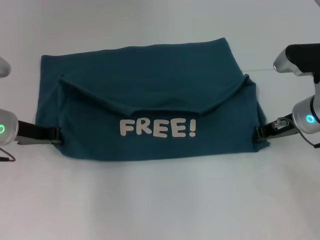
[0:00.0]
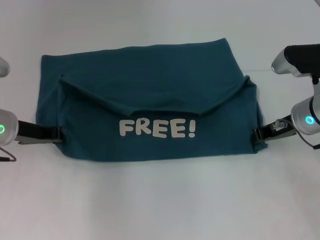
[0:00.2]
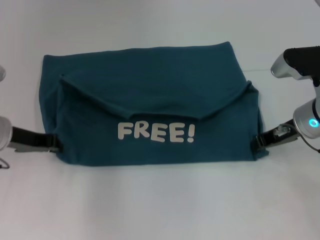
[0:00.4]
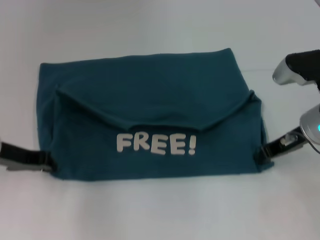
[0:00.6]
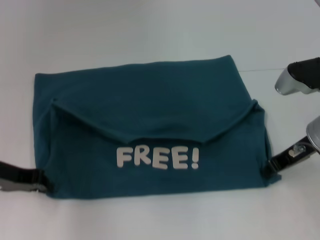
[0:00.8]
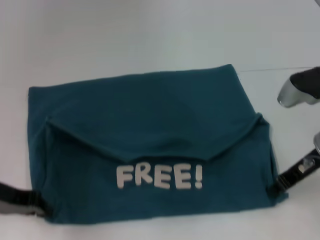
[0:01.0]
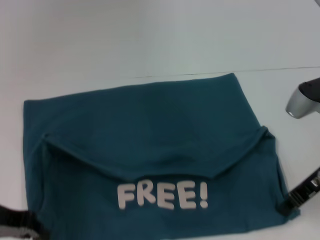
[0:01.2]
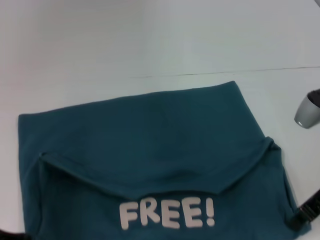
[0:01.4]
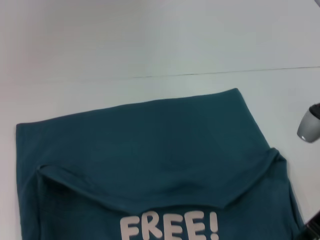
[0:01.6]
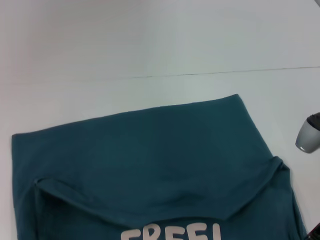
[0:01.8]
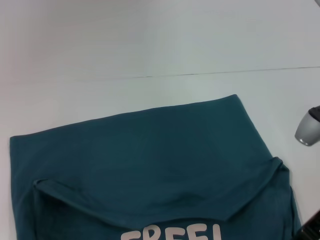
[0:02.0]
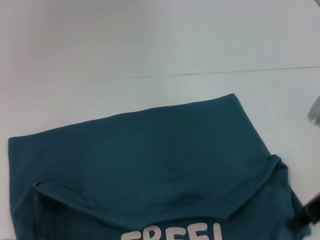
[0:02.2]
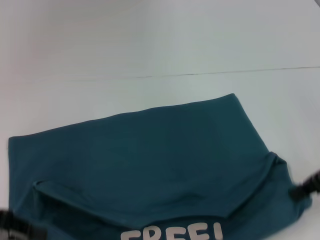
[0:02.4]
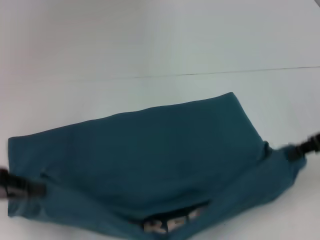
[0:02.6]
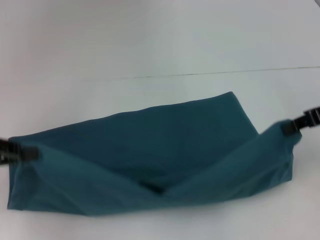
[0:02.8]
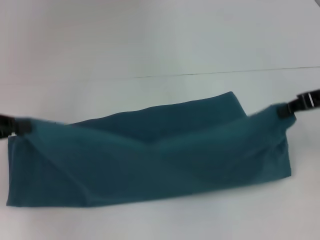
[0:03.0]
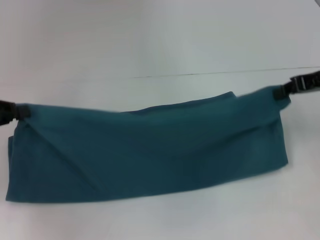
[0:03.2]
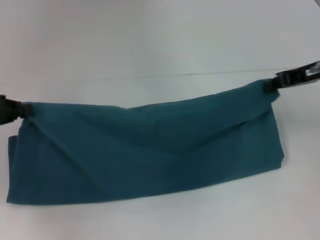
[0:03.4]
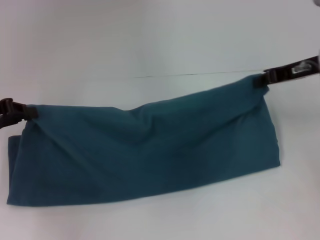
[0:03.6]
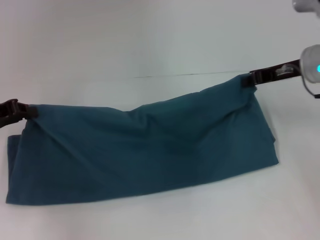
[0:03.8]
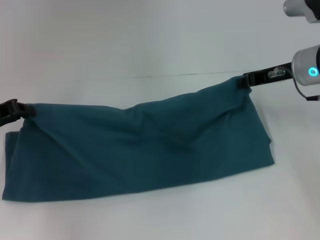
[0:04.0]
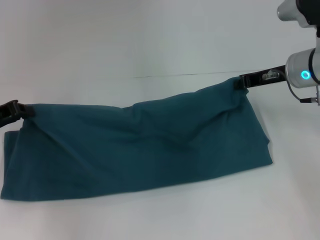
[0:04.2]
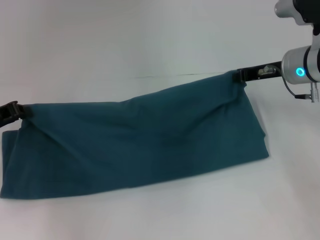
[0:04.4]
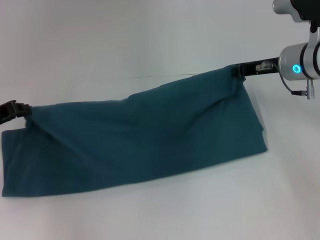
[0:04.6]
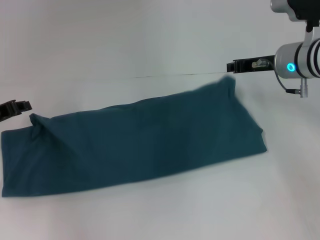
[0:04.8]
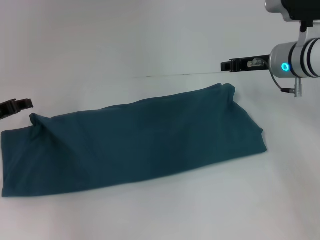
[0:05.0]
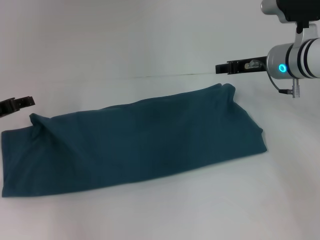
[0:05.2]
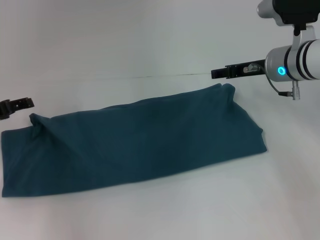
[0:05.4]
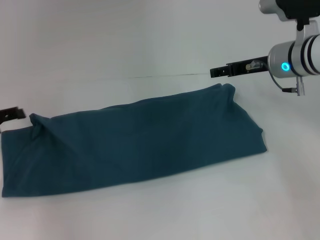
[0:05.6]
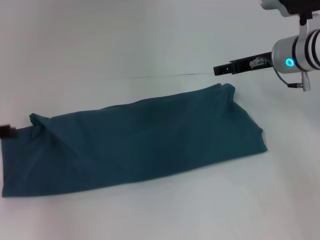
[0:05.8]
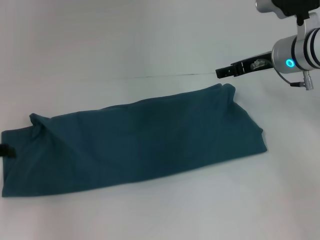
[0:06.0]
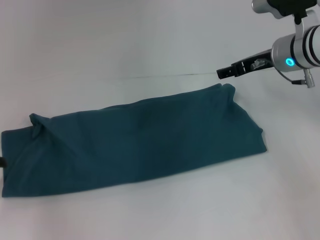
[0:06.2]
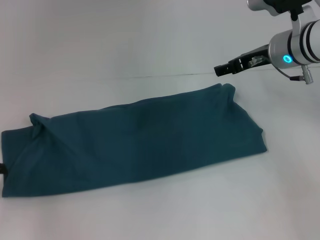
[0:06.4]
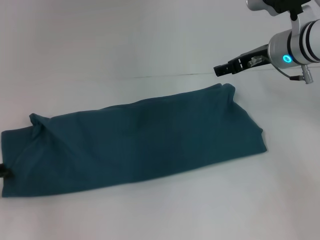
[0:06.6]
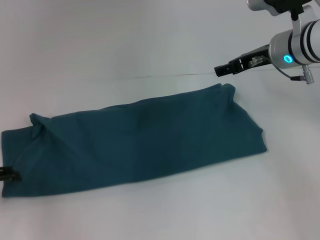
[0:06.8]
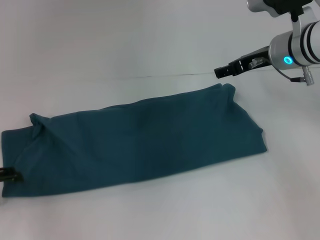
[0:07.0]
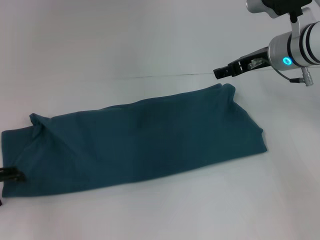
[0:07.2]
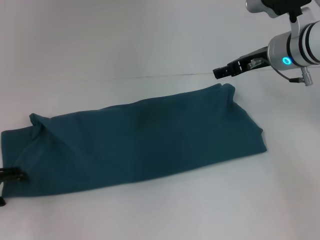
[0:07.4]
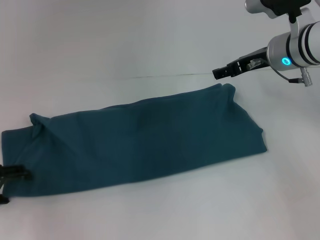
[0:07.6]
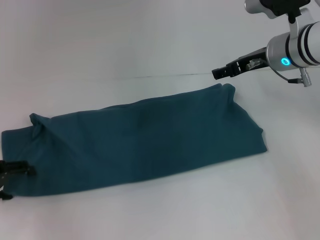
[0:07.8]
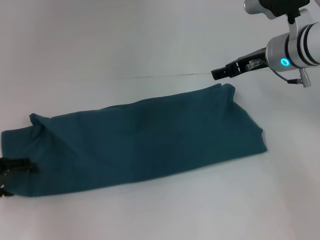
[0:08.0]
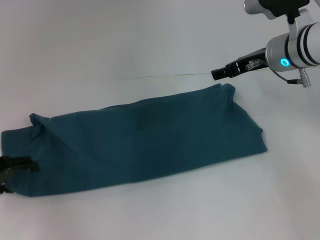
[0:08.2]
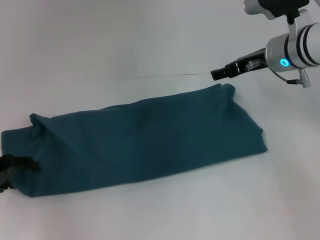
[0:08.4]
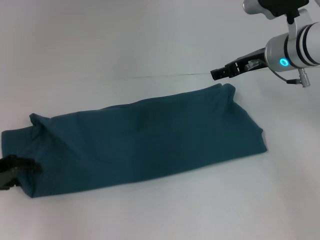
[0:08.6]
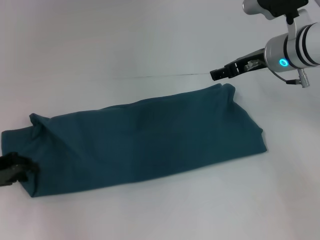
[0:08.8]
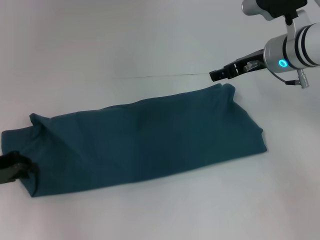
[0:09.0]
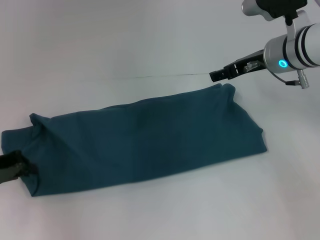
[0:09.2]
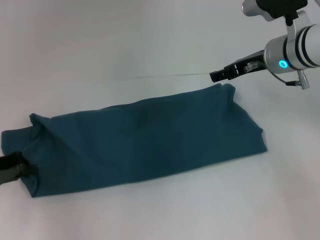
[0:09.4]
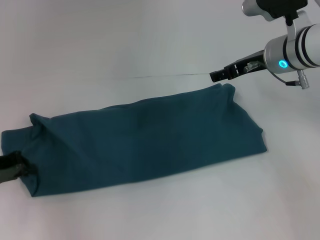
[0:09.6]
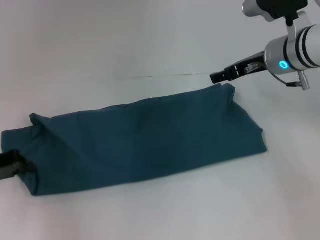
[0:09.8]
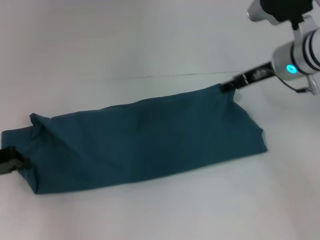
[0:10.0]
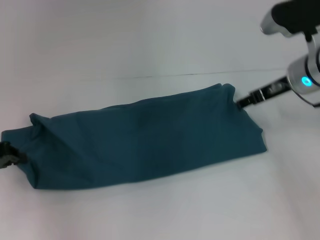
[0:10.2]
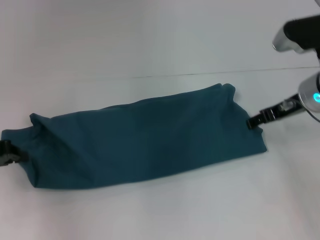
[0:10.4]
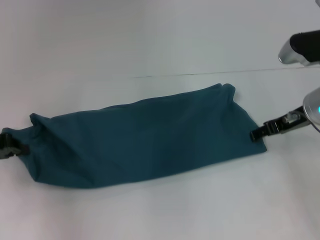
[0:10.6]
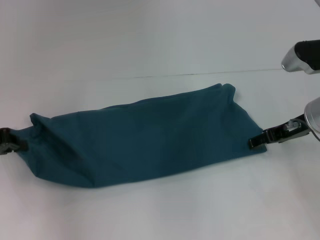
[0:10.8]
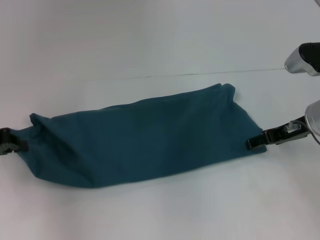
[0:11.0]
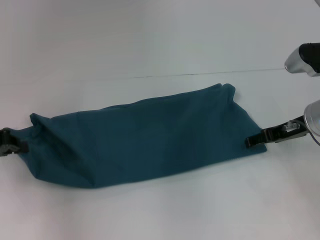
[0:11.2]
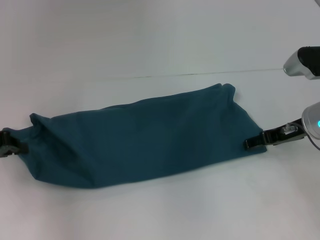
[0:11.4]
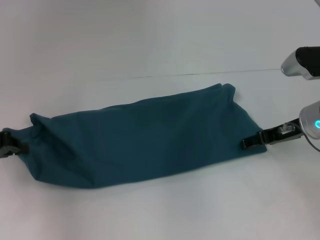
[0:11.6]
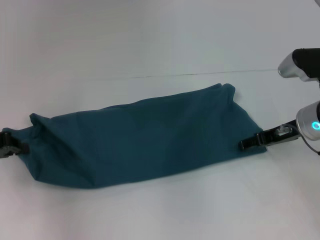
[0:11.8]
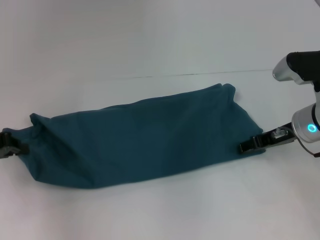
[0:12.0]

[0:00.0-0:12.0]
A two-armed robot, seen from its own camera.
Step, 2.0 to 4.8 s: Fold the clothes to the left.
Step, 2.0 to 4.8 s: Fold the clothes to the right.
0.0 to 1.6 s: The two grippers go roughly 10 cm backward.
1.6 to 3.0 s: The two grippers go about 10 cm upward and forward.
3.0 to 4.4 s: The right gripper shifts about 10 cm to the left, forward and downward, while the left gripper goes about 10 cm downward and forward.
4.4 to 6.0 s: The left gripper heads backward, covering approximately 5 cm, and opens up. Meanwhile the right gripper opens.
6.0 to 7.6 s: The grippers make only small movements.
7.6 to 9.0 s: The left gripper closes its fingers.
9.0 to 10.4 s: The right gripper changes place by some 5 cm. Meanwhile the left gripper closes.
10.4 to 12.0 s: The grippers stay close to where they were, moving slightly.

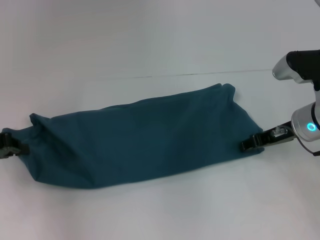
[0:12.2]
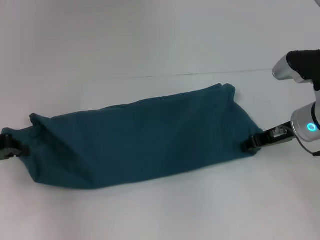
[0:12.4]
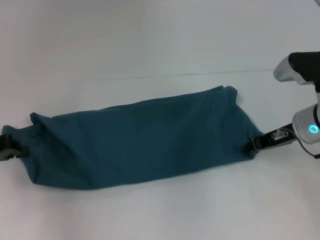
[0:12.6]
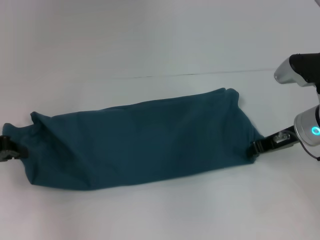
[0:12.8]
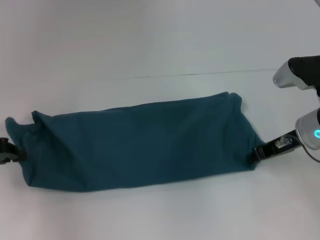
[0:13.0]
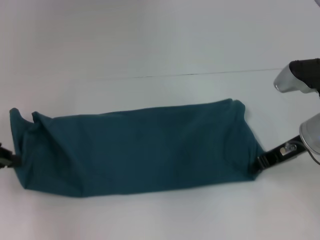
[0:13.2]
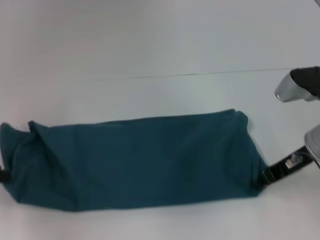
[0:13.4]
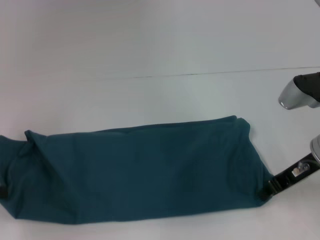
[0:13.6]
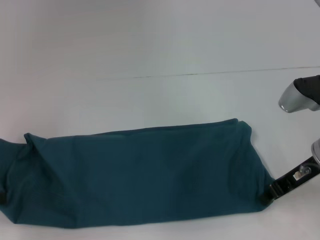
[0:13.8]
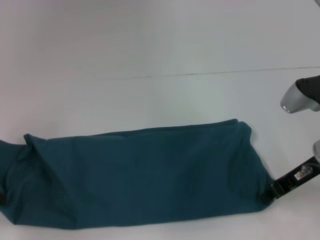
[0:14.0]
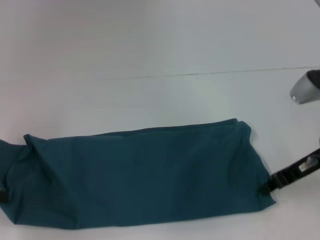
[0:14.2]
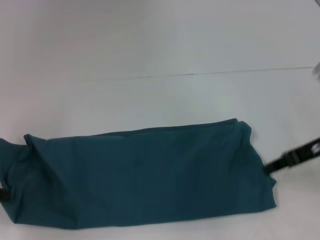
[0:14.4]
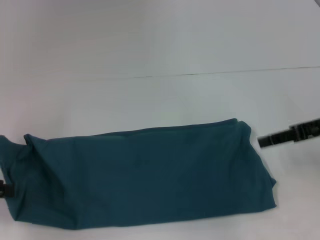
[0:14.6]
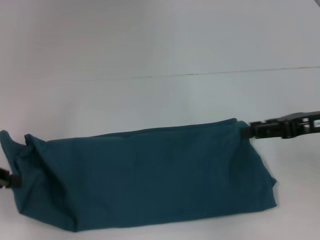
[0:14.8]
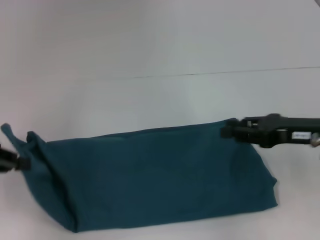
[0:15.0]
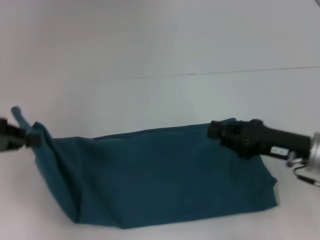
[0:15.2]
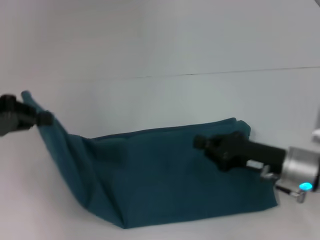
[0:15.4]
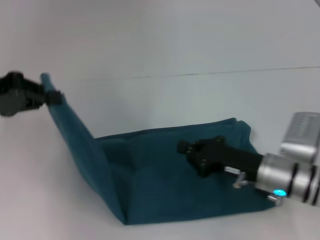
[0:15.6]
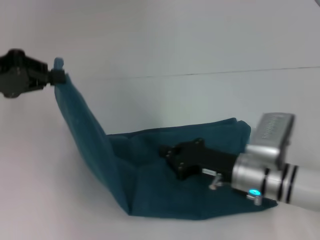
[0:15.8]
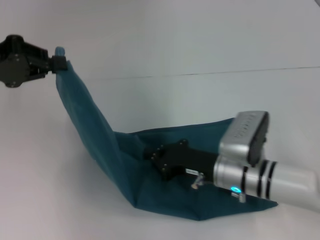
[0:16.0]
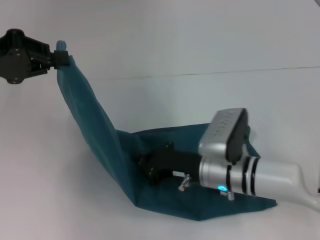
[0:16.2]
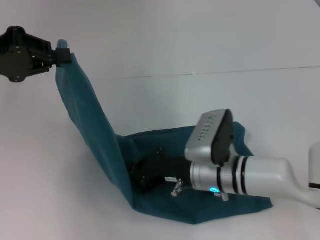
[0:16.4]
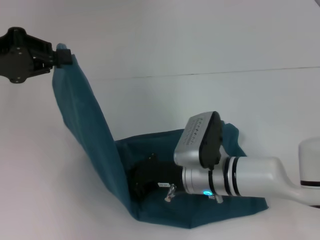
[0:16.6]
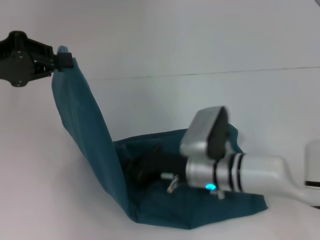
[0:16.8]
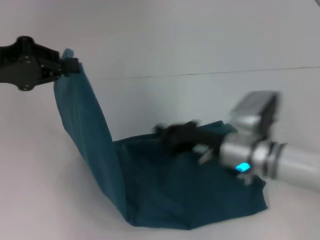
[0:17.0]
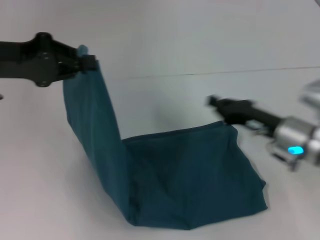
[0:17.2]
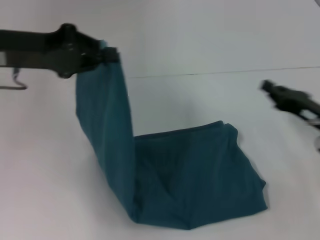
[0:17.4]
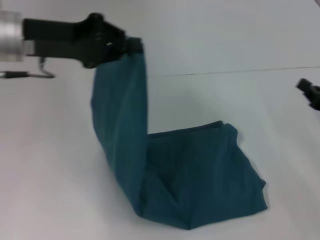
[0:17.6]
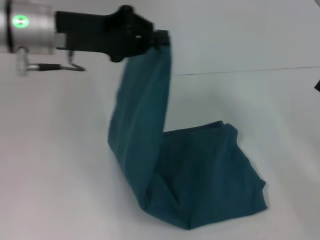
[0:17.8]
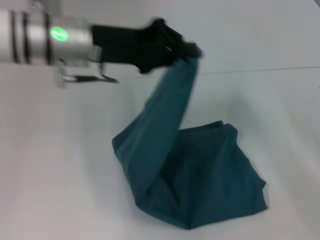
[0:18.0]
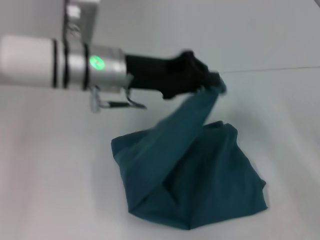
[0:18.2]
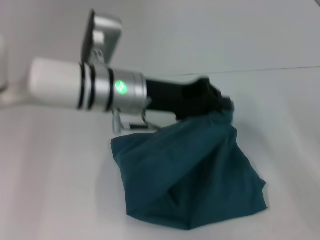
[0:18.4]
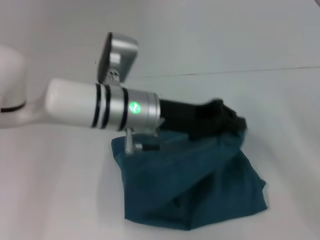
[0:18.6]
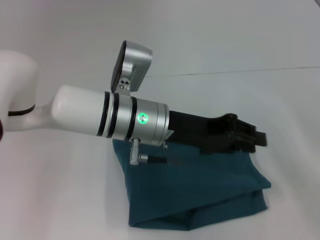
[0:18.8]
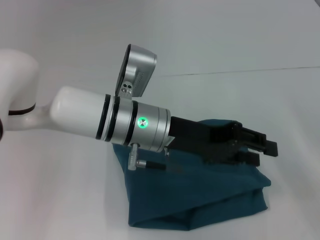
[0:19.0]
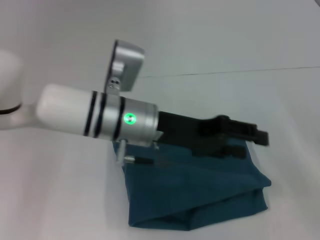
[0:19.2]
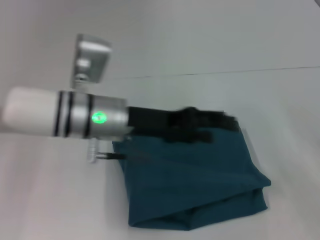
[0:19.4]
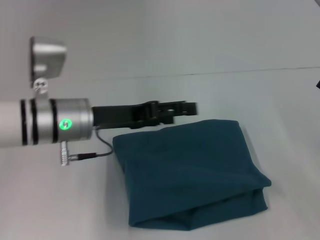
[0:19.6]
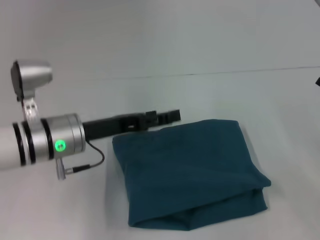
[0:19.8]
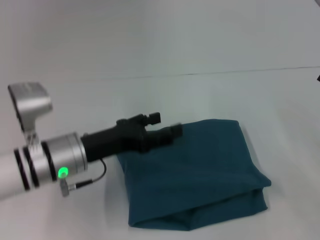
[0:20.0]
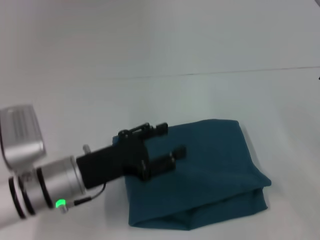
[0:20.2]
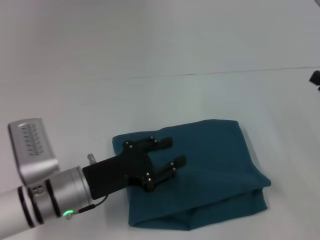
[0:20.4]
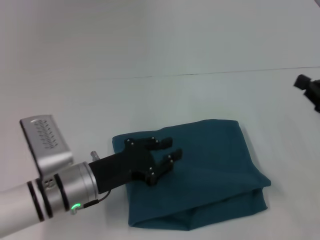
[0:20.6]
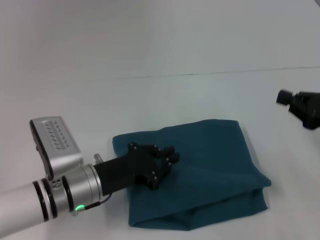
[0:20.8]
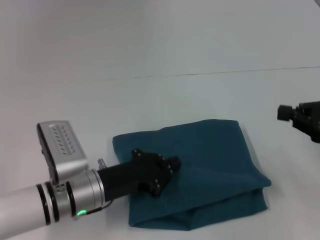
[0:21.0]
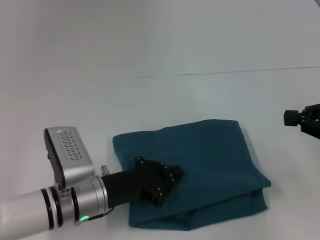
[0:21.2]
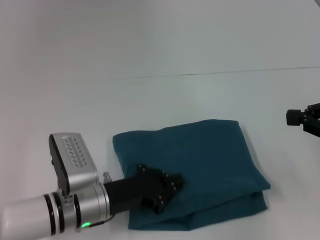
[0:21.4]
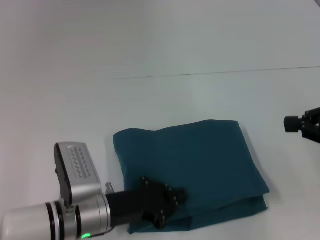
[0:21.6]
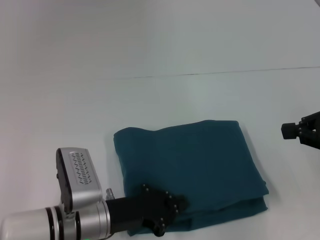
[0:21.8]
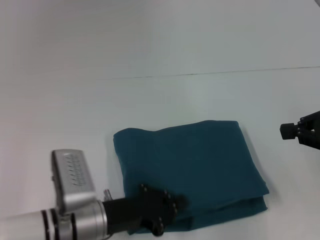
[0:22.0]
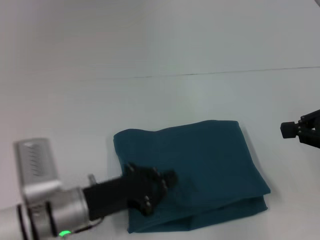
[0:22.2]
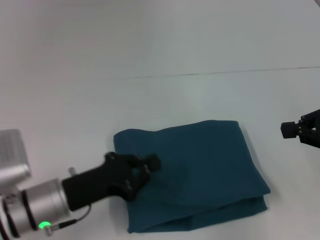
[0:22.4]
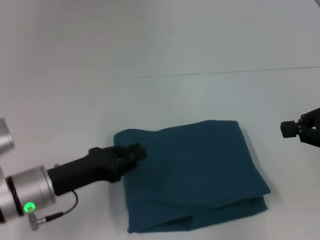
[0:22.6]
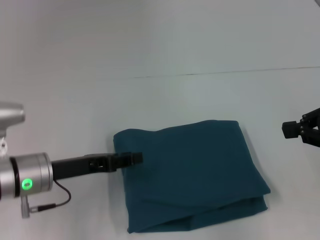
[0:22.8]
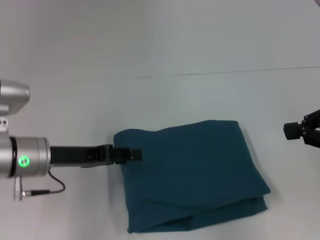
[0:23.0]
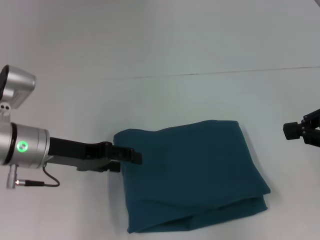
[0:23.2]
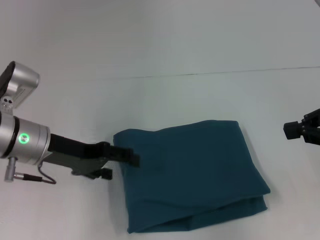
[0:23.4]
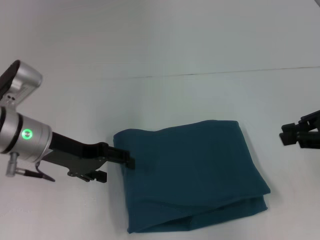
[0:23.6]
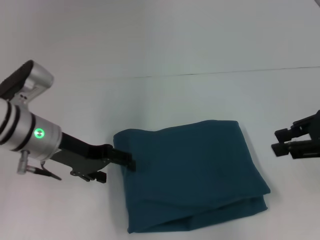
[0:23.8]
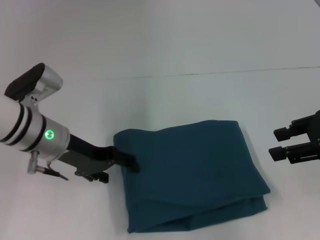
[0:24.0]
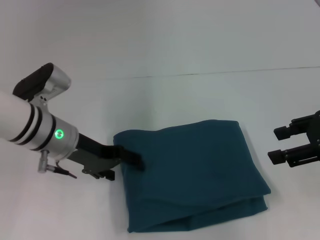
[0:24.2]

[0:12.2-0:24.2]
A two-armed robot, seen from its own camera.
Step, 14.0 to 16.8 s: Press the middle of the clothes with your right hand.
Step, 17.0 to 19.2 s: Fold the clothes to the left.
12.2 to 13.8 s: The grippers both shift backward by some 5 cm. The right gripper closes up.
13.8 to 15.2 s: The left gripper shifts by some 5 cm.
15.2 to 16.6 s: The right gripper shifts approximately 15 cm to the left, while the left gripper moves upward, some 5 cm.
16.6 to 18.2 s: Both grippers travel together to the right, some 25 cm.
18.2 to 19.8 s: The left gripper travels downward and to the left by roughly 10 cm, and opens up.
19.8 to 21.2 s: The right gripper goes some 10 cm upward, while the left gripper goes approximately 10 cm downward and backward, and closes up.
21.2 to 22.6 s: The left gripper heads to the left, covering roughly 5 cm.
22.6 to 24.2 s: The left gripper heads forward and upward, covering some 10 cm, and opens up. The right gripper opens its fingers.
